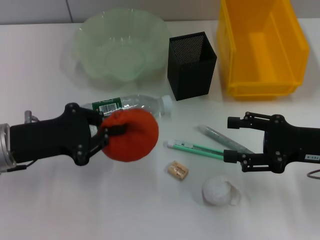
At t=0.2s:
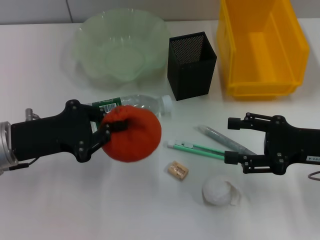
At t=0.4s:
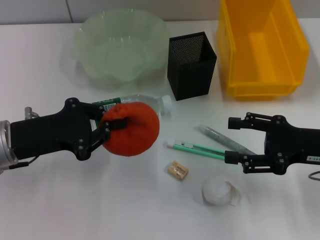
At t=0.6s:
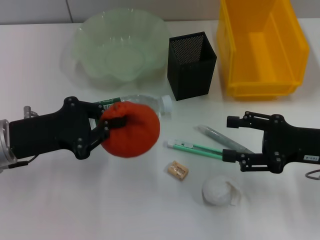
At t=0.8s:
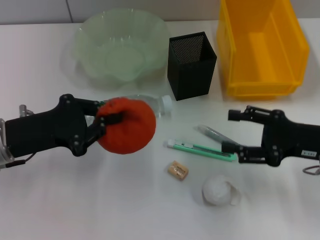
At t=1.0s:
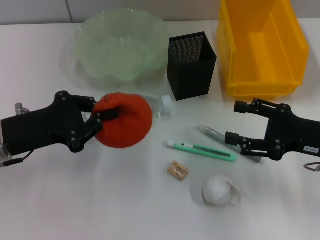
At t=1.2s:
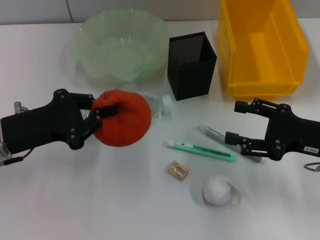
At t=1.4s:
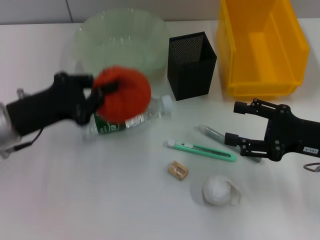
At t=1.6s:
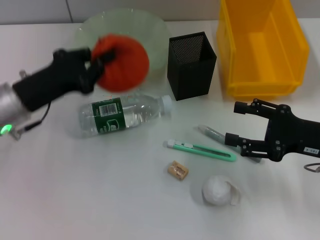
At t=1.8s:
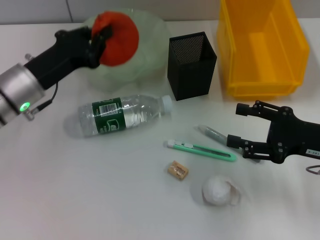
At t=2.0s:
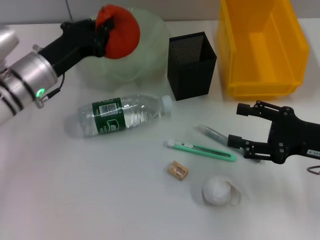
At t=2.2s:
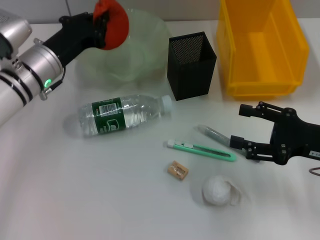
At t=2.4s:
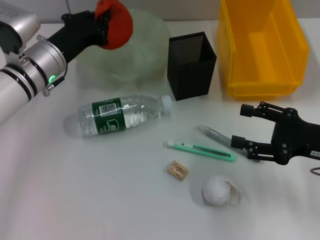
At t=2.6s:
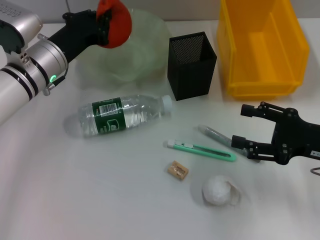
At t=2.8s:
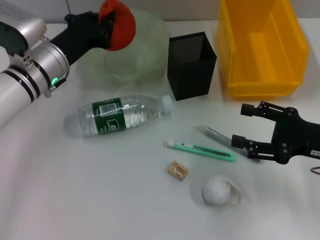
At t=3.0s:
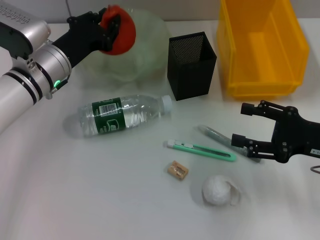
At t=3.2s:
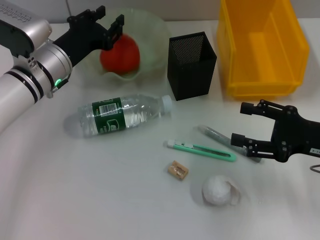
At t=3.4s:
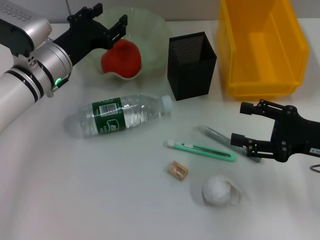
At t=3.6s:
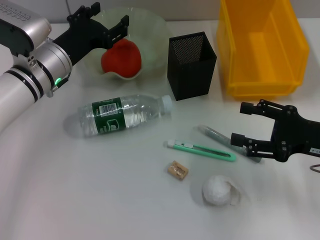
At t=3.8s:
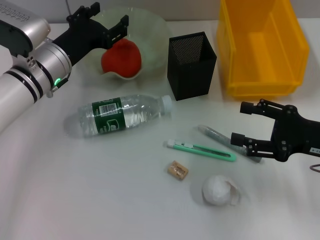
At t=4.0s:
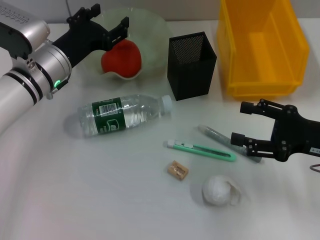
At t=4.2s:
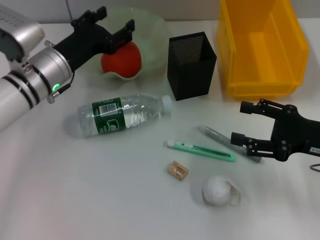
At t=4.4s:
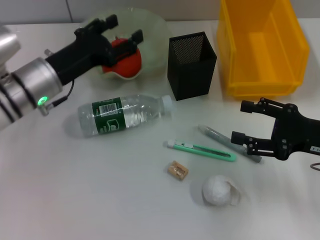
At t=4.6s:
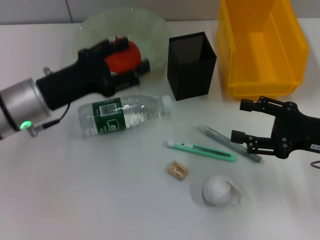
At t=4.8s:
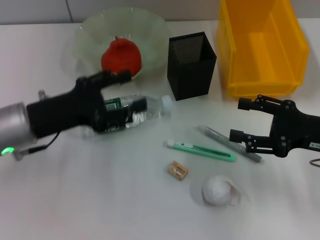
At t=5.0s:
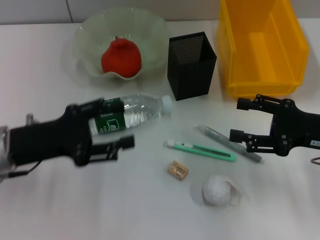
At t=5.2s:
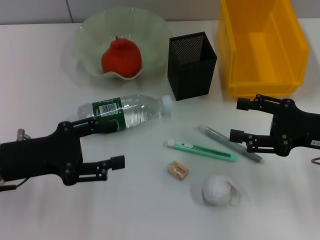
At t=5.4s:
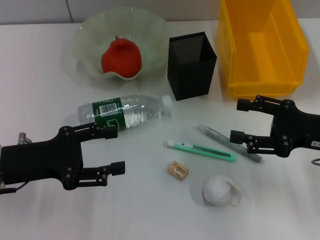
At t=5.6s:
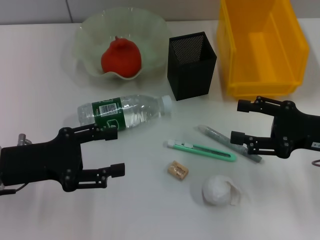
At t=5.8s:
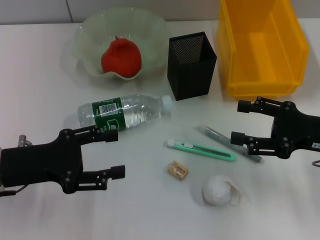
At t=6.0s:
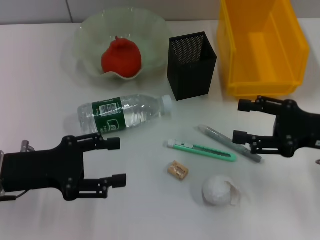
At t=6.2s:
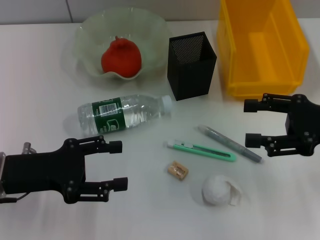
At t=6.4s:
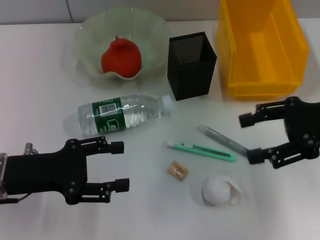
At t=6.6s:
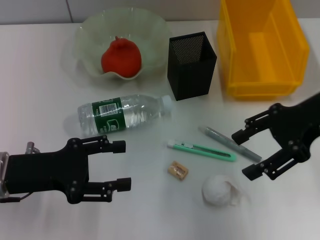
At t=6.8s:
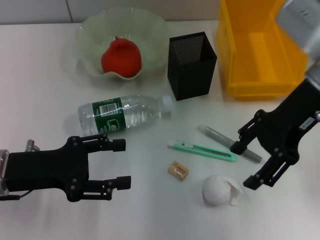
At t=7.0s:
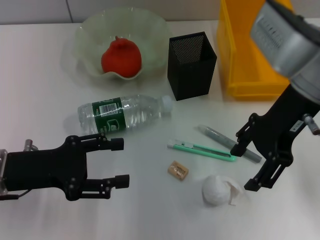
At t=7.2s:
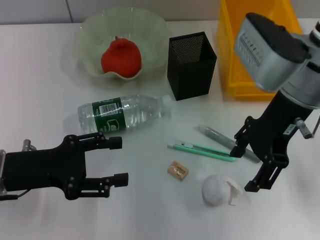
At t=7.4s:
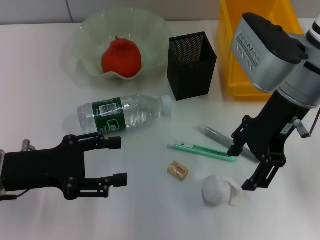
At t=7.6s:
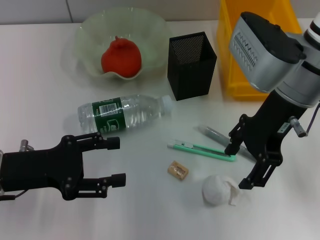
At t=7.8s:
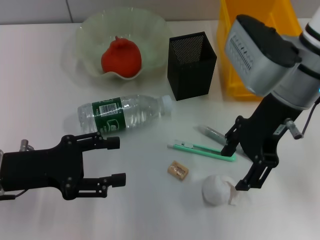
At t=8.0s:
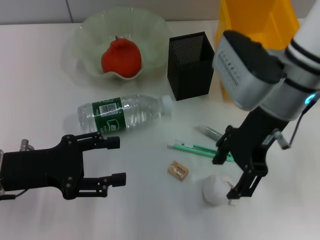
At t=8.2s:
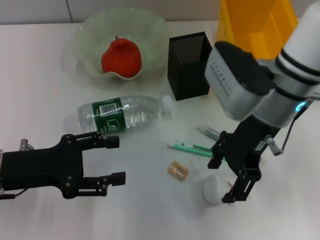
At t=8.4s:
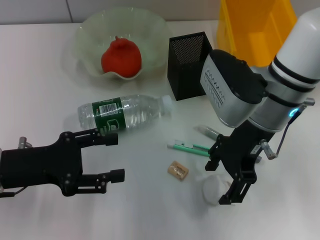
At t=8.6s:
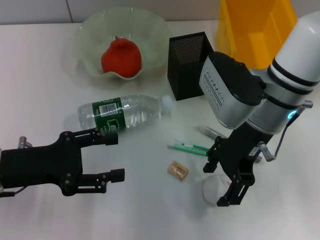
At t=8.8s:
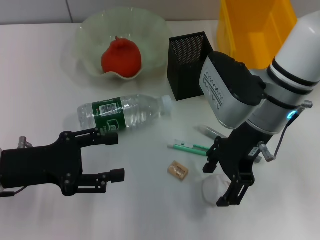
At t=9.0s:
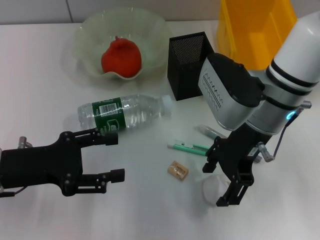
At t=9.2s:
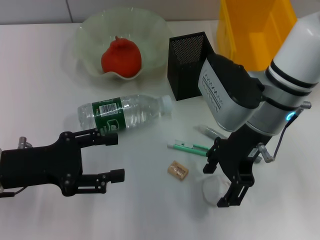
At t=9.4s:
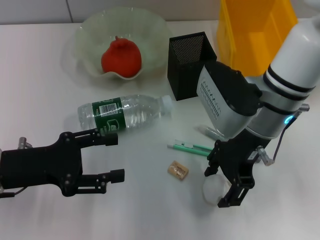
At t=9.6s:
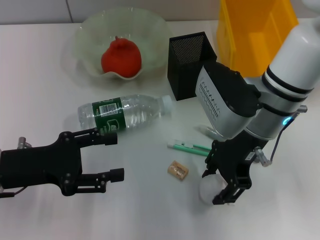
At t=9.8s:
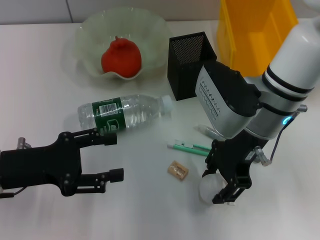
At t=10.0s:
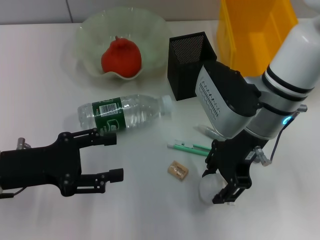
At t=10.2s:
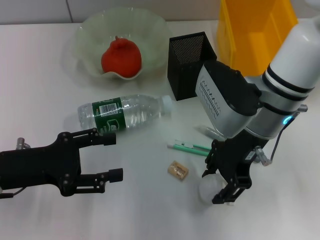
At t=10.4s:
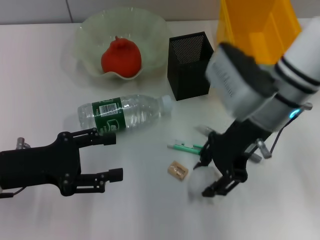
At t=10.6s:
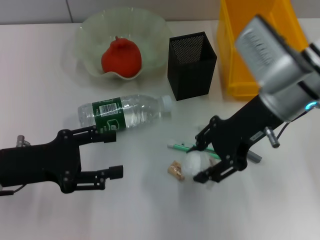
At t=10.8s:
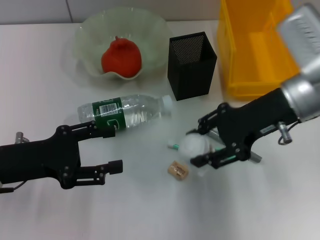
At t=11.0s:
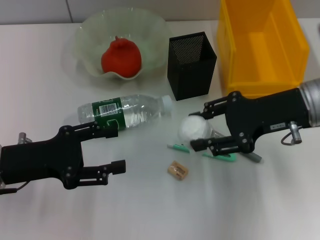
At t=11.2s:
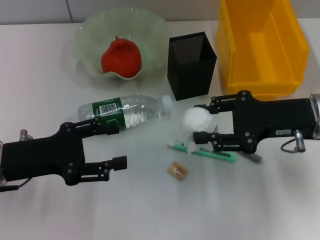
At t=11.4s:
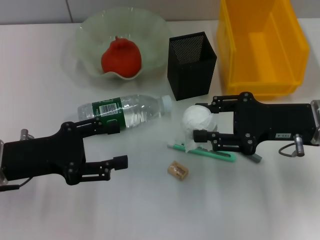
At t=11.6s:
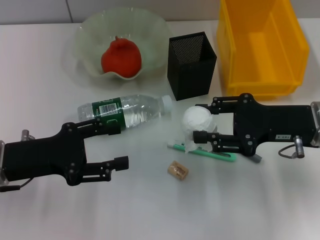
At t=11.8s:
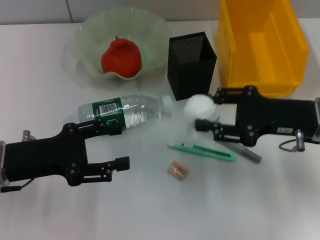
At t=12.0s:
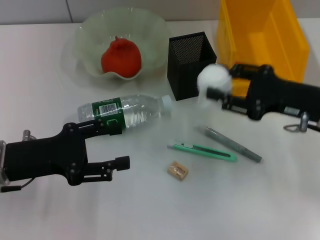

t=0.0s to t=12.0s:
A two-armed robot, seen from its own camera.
Step, t=0.0s to t=3.4s: Place the orange into the fruit bowl with the left hand.
Step, t=3.8s to t=9.8s: Grab the paper ball with the right hand.
t=1.6s to t=3.0s: The left gripper travels forward by roughly 10 cm.
t=3.0s to t=4.4s: The left gripper opens its fingers.
t=4.4s to t=6.0s: The left gripper shifts some 15 cm backward and to the left.
t=6.0s to t=7.6s: The right gripper moves to the left, upward and forward, approximately 20 cm.
t=7.6s to t=9.0s: The right gripper shifts by roughly 5 cm.
t=9.0s to t=10.4s: The right gripper closes its fingers.
t=10.4s to t=12.0s: The right gripper shifts approximately 10 cm to the right.

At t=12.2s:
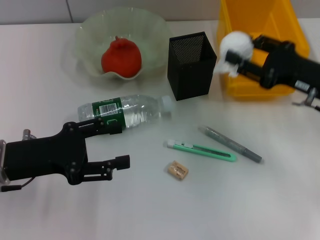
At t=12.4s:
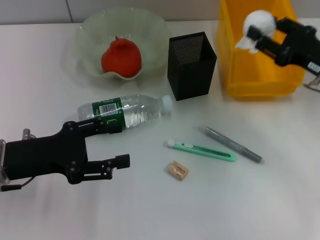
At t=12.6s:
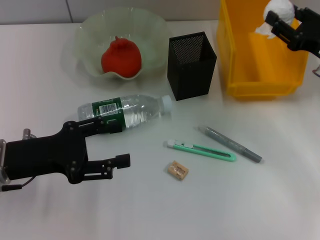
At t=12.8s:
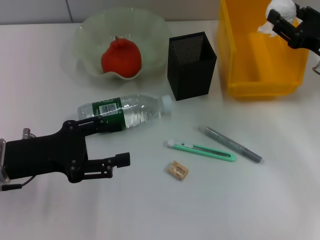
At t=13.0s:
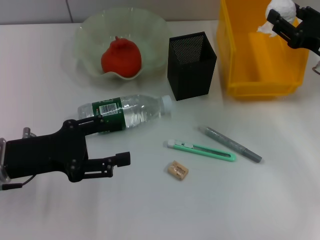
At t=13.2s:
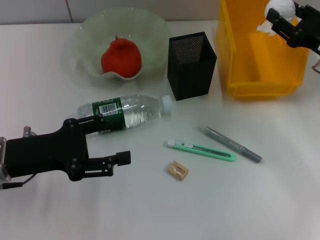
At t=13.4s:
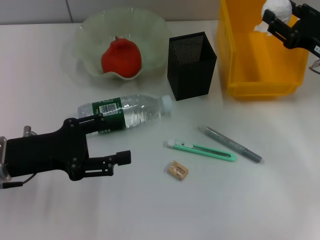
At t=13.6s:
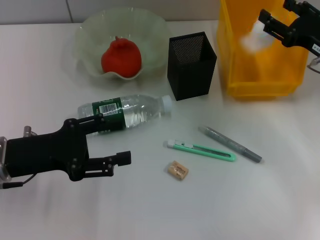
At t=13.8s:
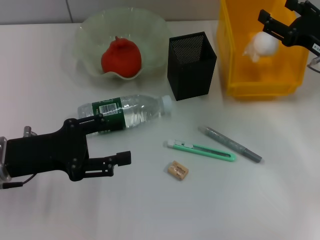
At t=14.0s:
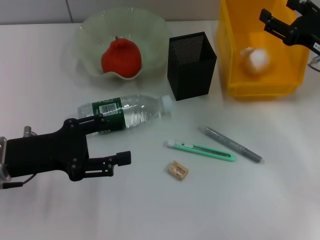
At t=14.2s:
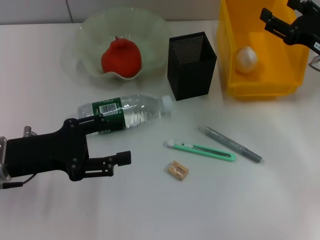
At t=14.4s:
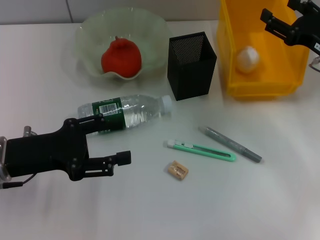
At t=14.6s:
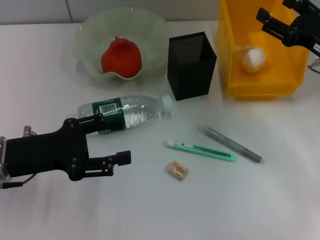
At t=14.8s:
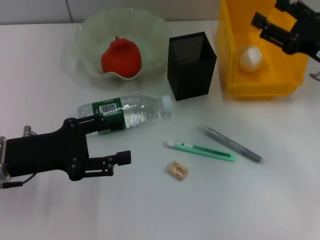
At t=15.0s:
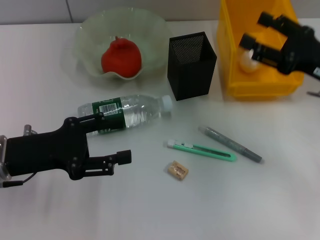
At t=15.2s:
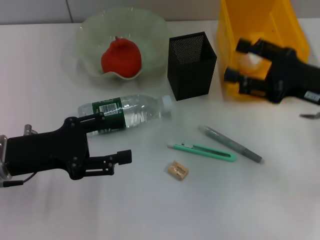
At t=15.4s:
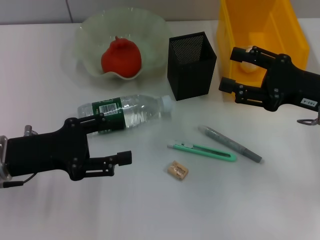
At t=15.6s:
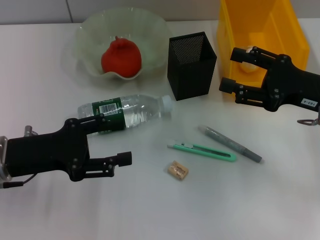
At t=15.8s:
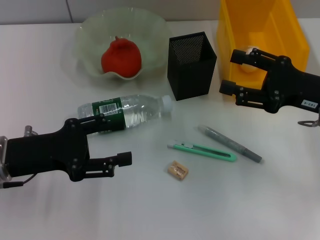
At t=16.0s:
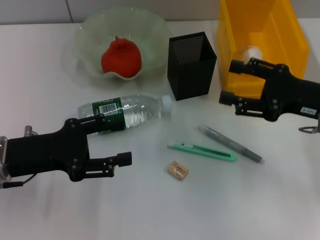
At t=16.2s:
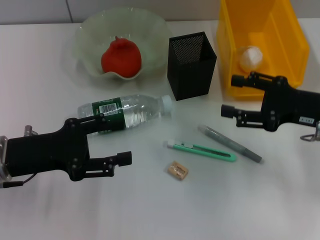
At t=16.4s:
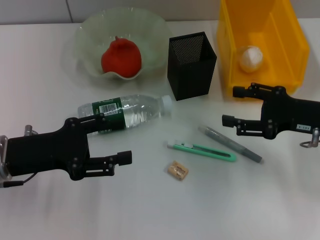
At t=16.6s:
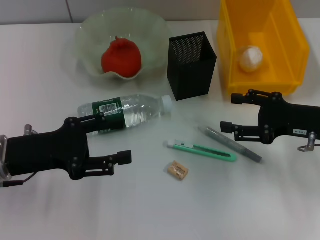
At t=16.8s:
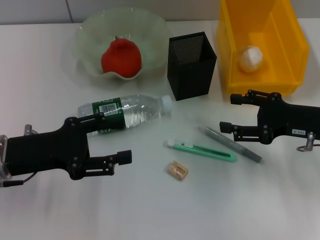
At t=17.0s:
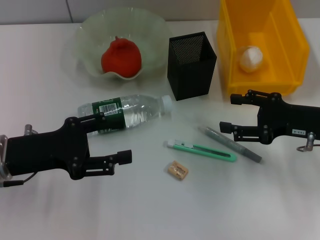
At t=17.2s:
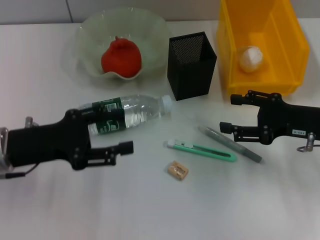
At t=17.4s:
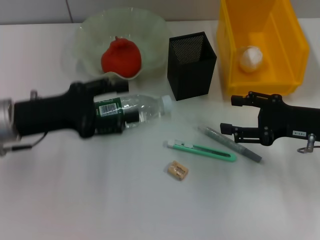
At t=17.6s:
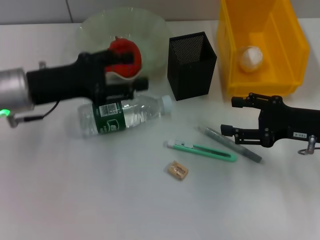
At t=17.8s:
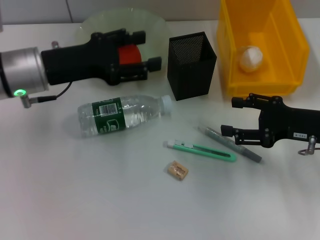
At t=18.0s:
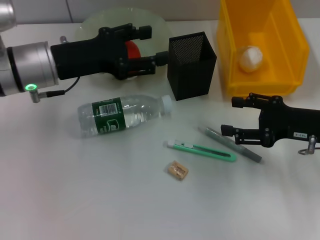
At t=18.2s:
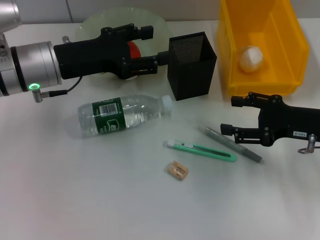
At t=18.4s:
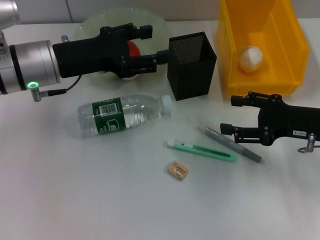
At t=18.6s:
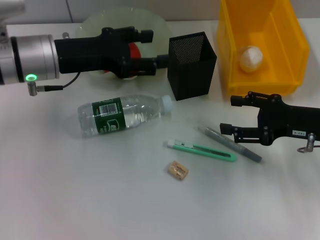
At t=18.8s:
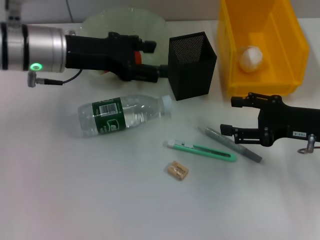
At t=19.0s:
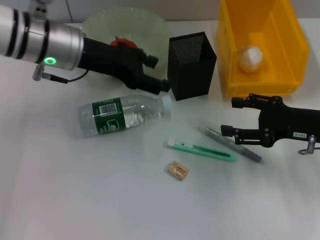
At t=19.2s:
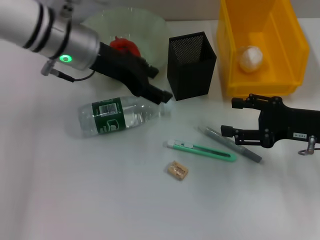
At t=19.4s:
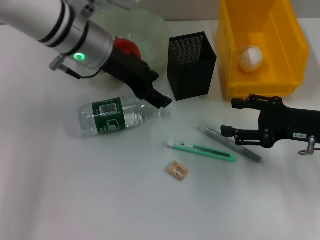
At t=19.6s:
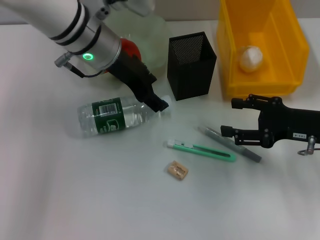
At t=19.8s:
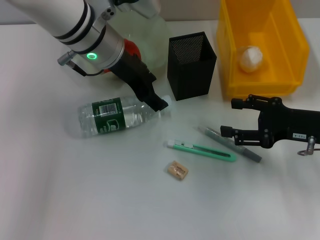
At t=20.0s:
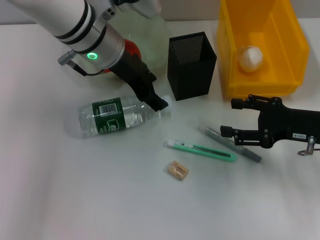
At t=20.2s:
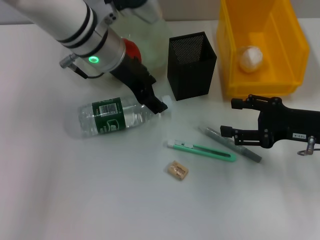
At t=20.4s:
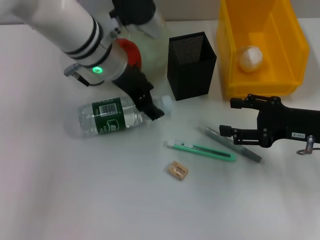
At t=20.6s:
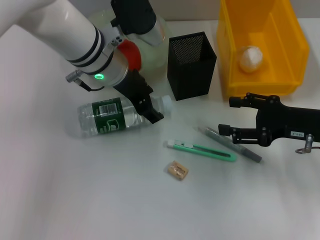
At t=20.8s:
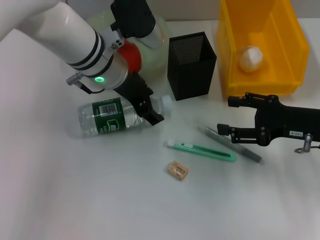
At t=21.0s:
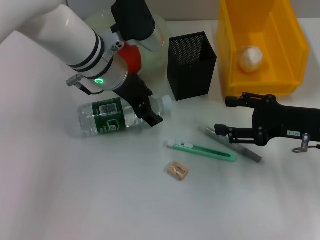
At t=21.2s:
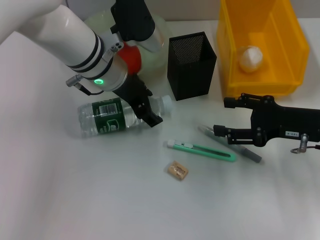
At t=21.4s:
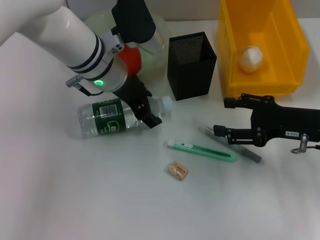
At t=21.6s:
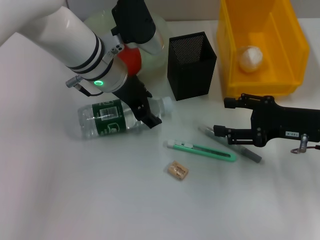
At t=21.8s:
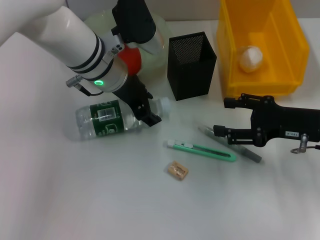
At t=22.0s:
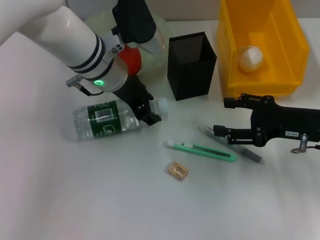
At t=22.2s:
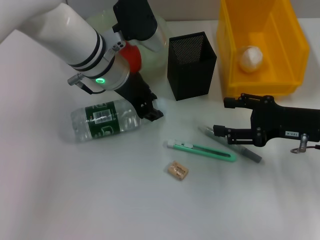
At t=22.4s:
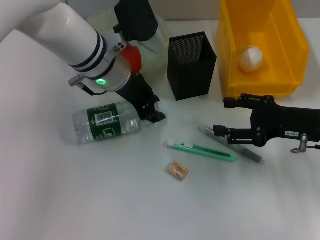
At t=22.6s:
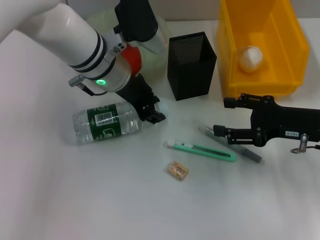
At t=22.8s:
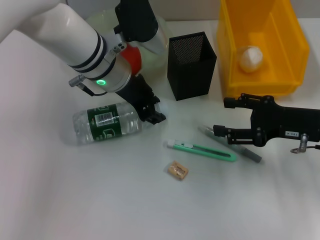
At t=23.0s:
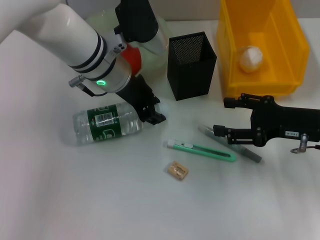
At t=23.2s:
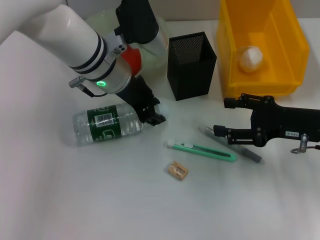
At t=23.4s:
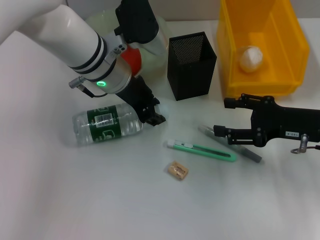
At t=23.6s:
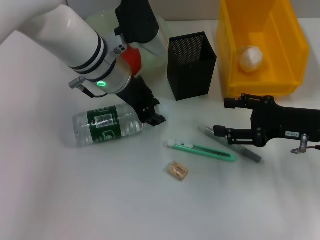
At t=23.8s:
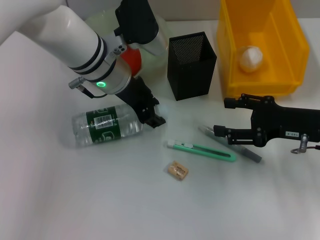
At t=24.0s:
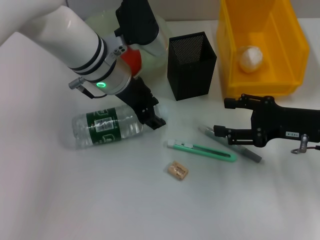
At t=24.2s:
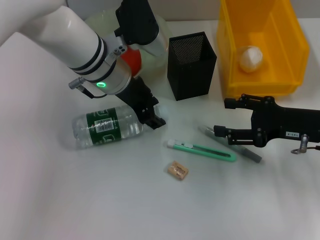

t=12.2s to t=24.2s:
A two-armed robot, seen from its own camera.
Step, t=14.2s to t=22.2s: Grab the water bottle with the left hand.
t=13.8s to t=15.2s: The right gripper heads backward, covering about 5 cm.
t=15.2s to t=16.6s: The grippers stay close to where they were, moving slightly.
t=16.6s to t=18.2s: The left gripper heads forward and to the right, covering approximately 10 cm.
t=18.2s to t=19.8s: The left gripper moves to the right, roughly 10 cm.
t=19.8s to t=21.2s: The grippers move only a little.
t=21.2s to t=22.6s: The left gripper closes its fingers.
t=22.6s to t=24.2s: The two grippers keep their place.
